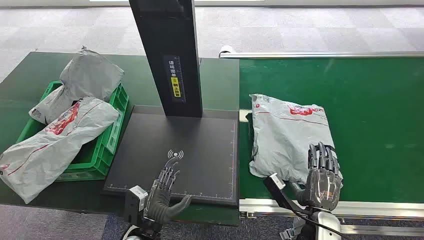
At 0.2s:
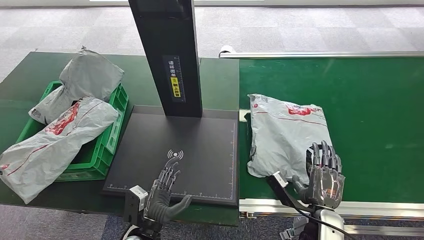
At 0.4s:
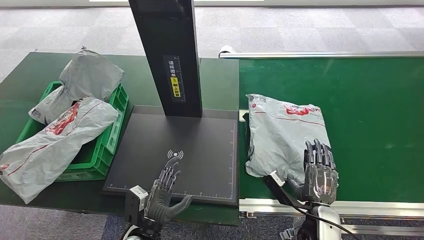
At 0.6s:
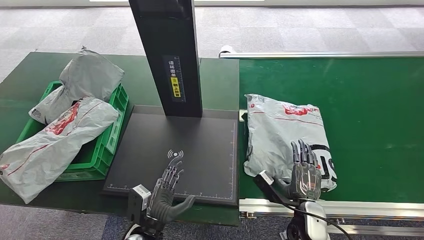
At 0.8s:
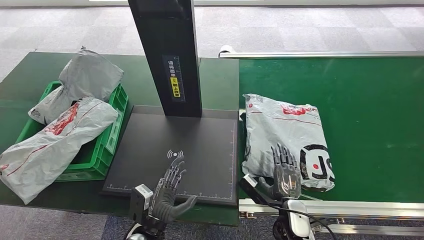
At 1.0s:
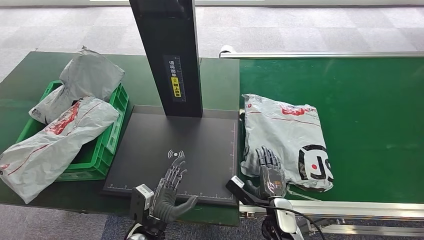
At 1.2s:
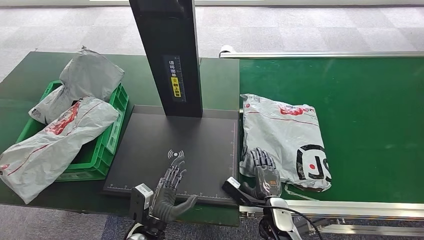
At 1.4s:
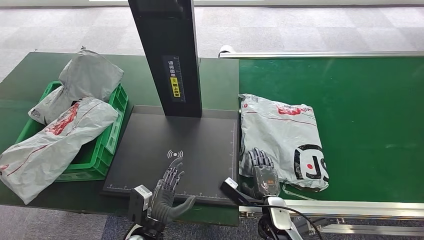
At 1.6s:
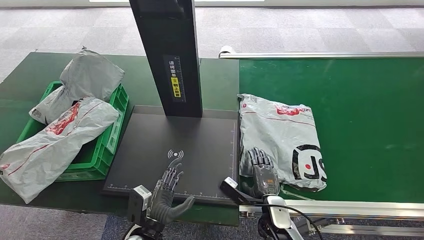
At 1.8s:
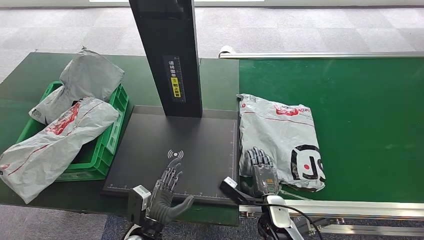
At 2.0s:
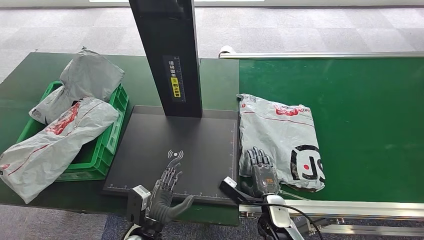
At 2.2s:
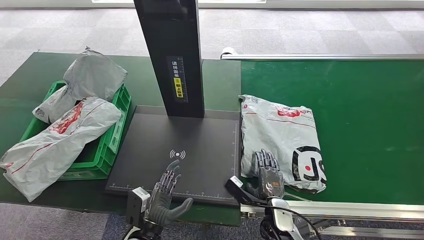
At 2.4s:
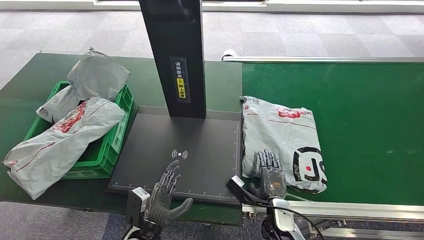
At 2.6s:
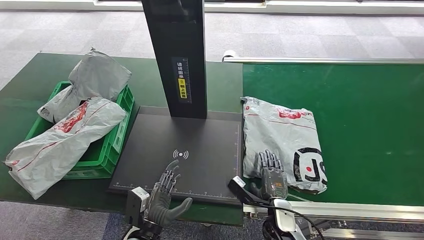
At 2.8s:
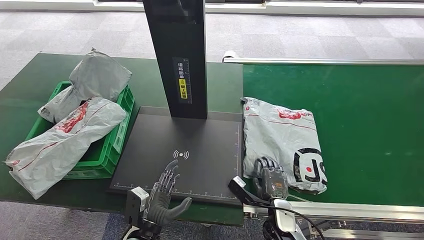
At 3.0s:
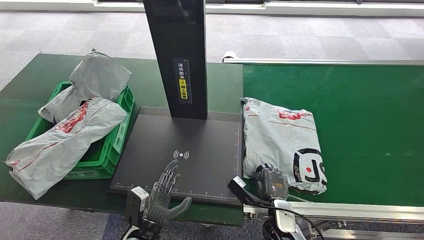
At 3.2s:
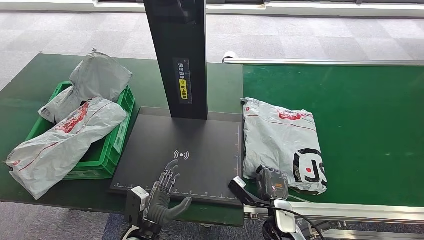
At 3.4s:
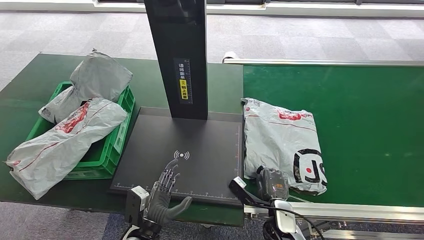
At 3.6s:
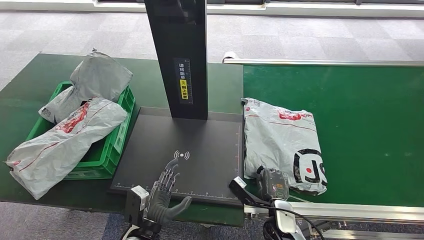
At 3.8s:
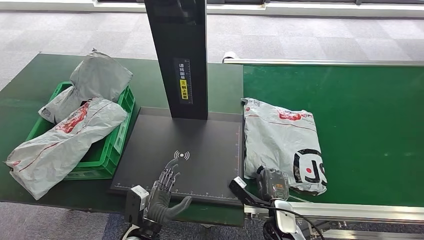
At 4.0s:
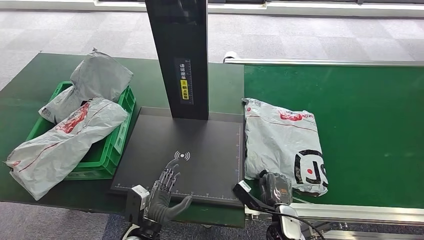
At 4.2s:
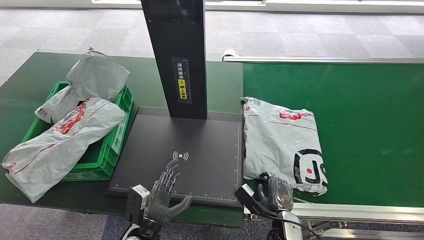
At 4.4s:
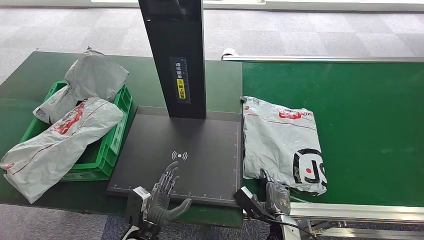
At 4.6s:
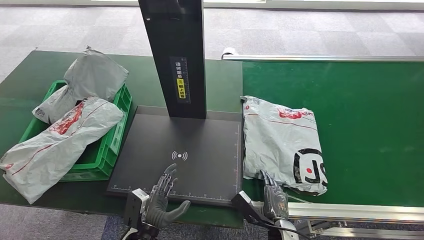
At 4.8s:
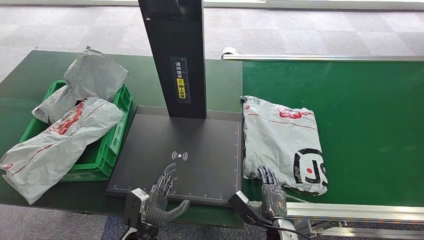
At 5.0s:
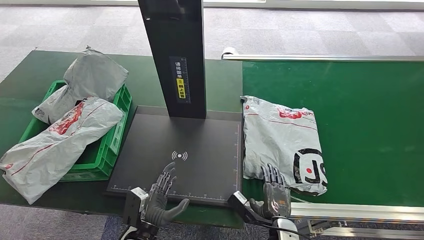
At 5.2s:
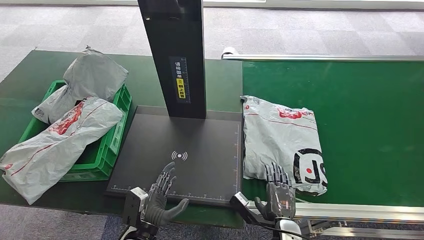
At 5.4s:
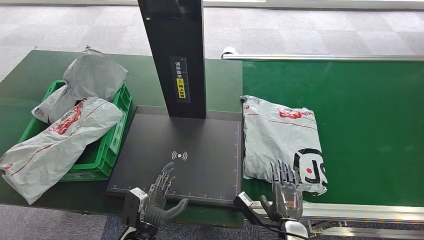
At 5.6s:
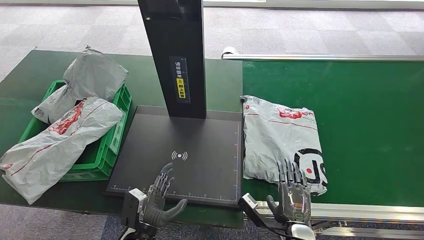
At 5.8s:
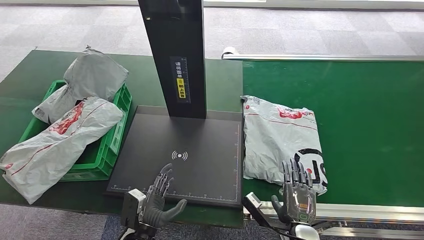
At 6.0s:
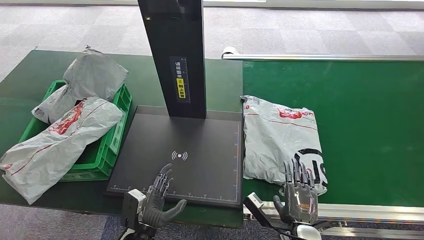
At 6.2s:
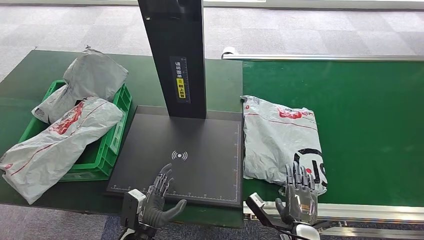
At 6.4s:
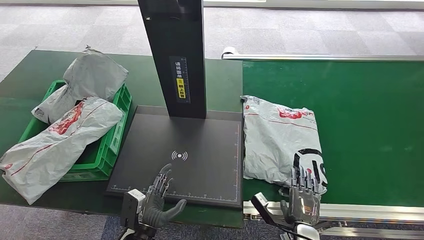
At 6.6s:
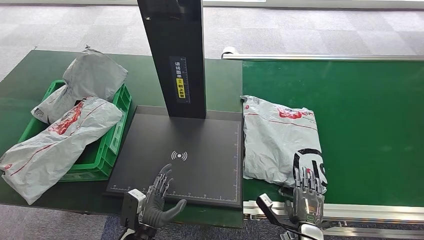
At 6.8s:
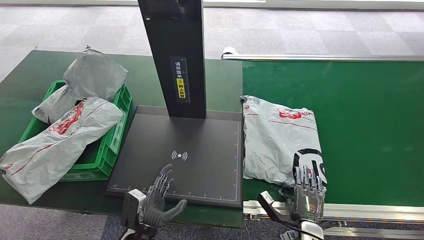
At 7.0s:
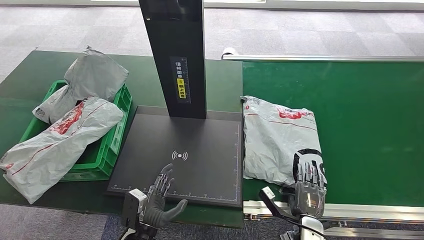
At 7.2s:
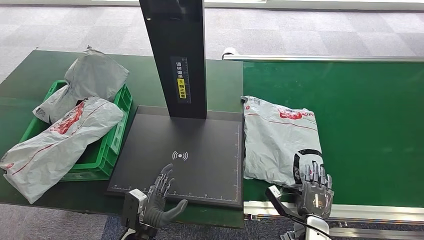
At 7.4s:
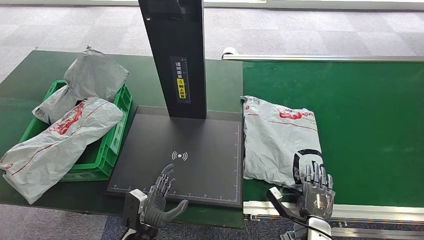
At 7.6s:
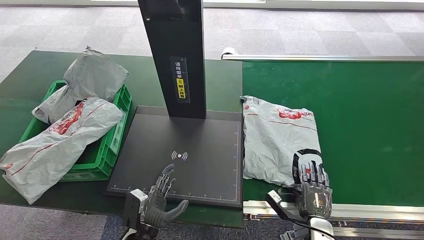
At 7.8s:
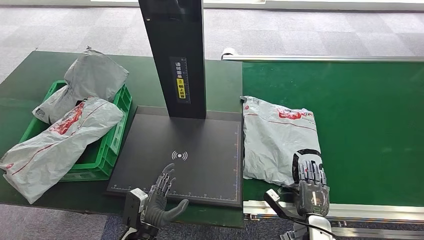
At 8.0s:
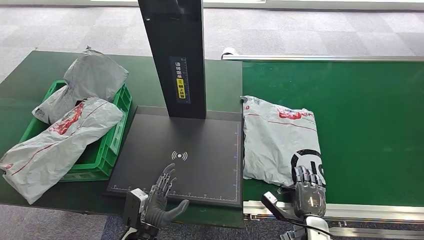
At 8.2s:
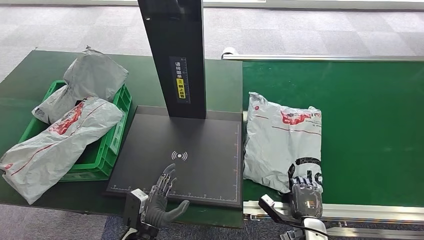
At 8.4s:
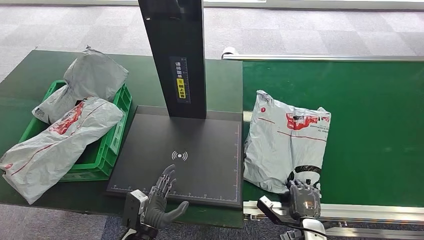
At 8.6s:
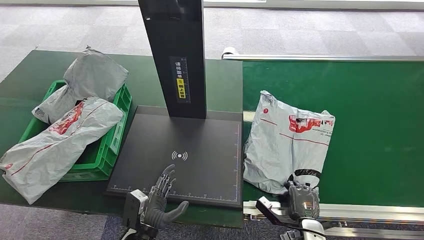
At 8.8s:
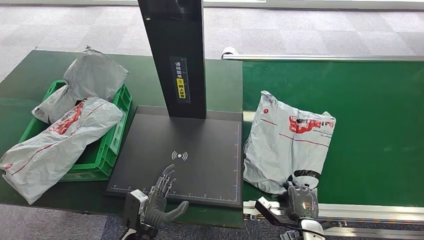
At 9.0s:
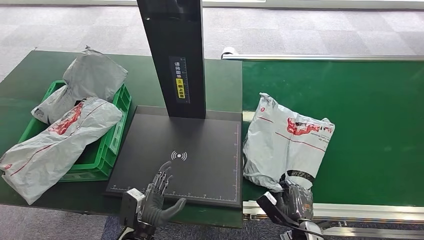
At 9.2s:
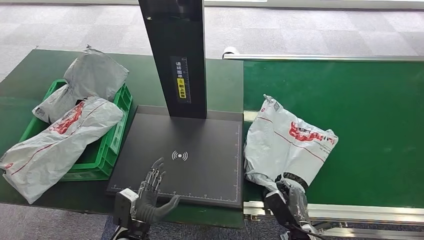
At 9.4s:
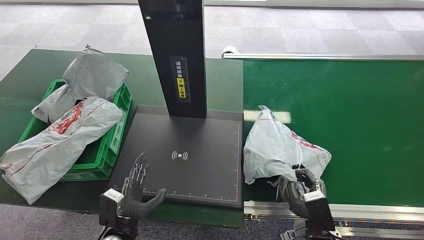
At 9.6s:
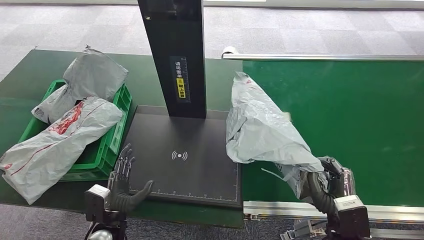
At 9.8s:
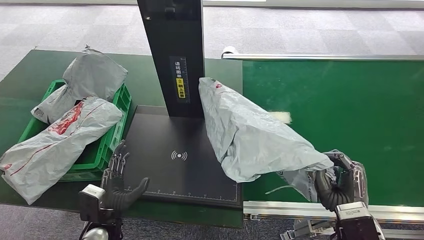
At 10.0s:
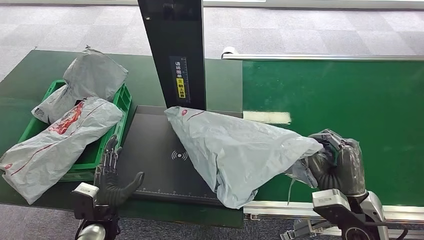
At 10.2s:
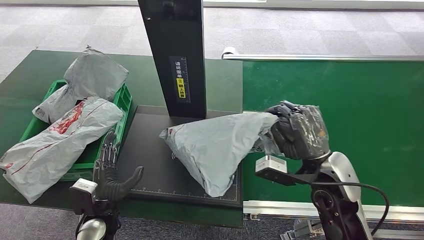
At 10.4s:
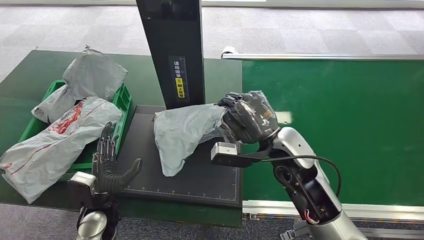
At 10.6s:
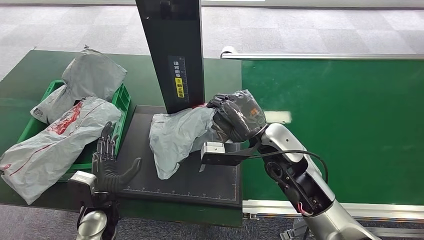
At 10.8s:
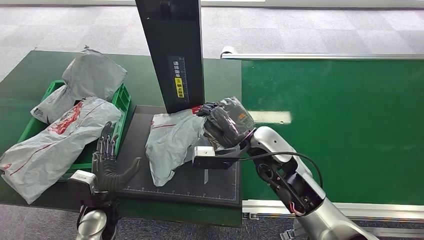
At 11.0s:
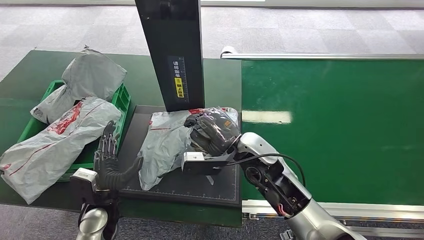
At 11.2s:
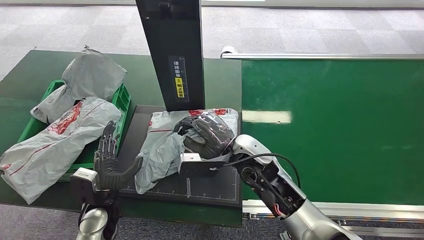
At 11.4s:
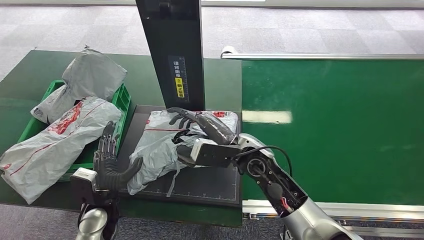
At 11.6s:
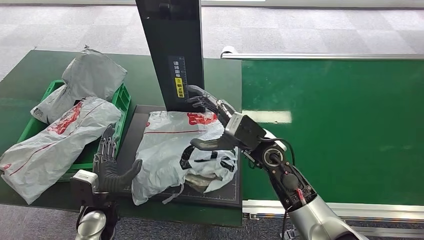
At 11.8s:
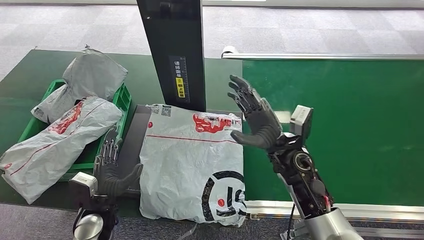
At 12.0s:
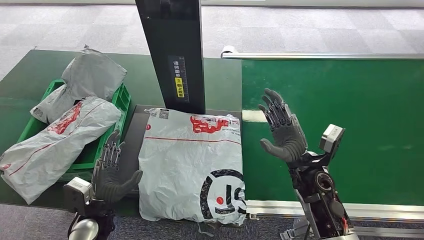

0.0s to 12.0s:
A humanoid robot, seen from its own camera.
Step, 0.0s to 9.8s: Pick up the package from the conveyor belt.
Step, 10.2s to 11.8s: Place the package onto the inbound machine.
3.0s to 4.4s: The hands stay close to where they were, moving slightly.
4.4s to 6.0s: The right hand is displaced upward by roughly 5 cm.
6.0s to 7.6s: The right hand travels to the right and downward by roughly 10 cm.

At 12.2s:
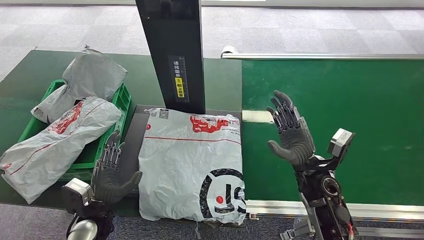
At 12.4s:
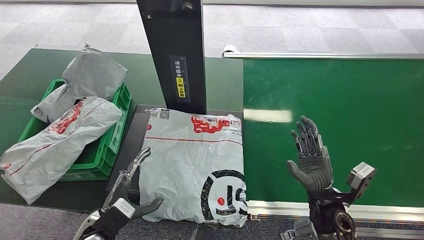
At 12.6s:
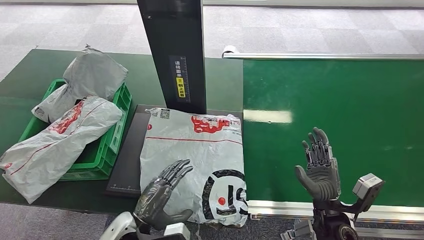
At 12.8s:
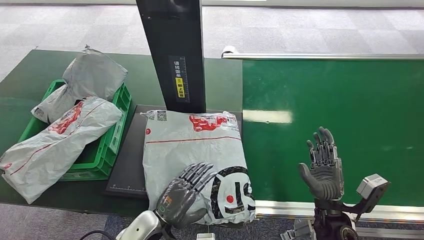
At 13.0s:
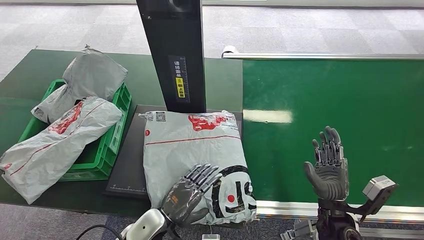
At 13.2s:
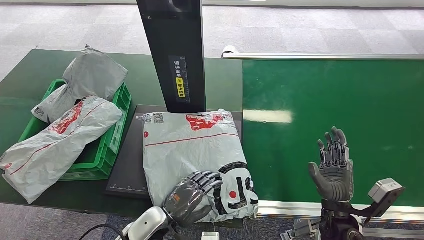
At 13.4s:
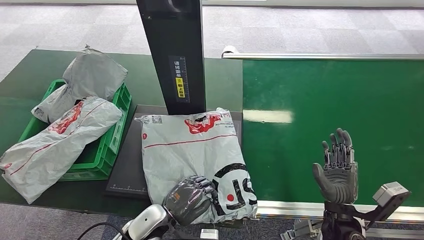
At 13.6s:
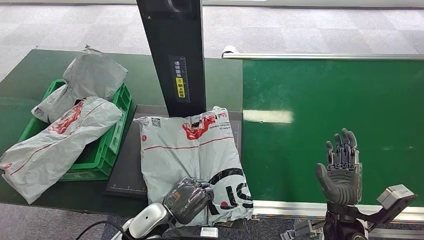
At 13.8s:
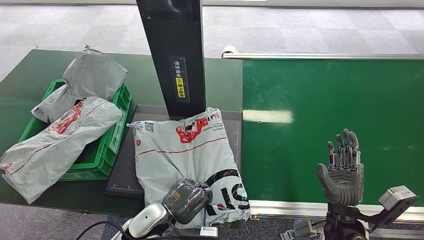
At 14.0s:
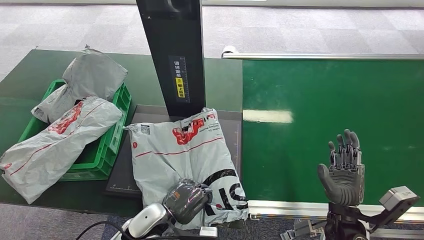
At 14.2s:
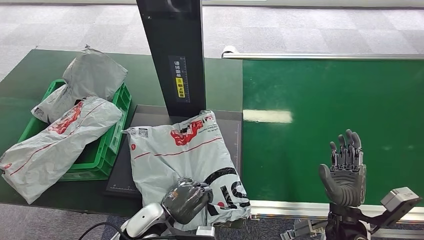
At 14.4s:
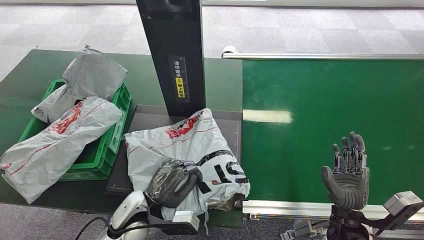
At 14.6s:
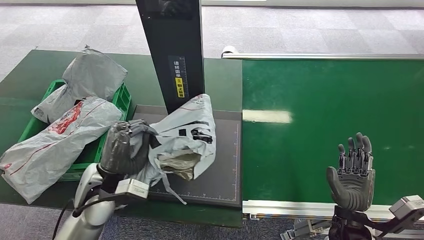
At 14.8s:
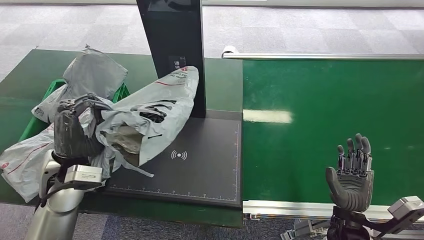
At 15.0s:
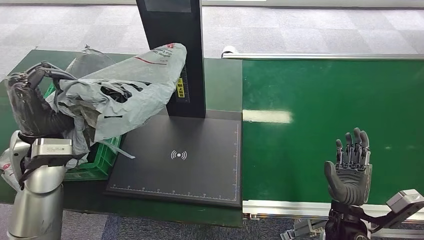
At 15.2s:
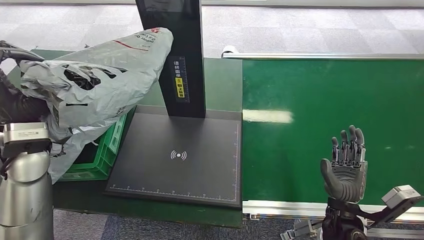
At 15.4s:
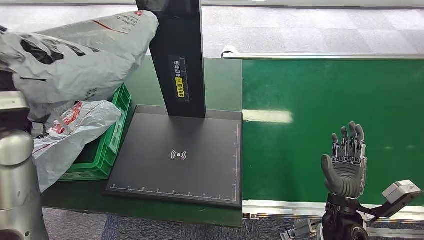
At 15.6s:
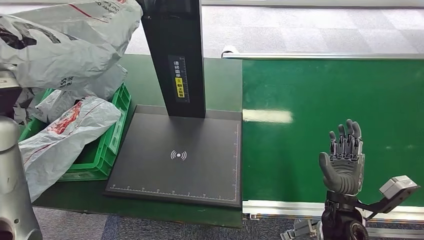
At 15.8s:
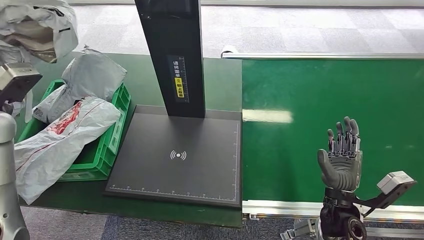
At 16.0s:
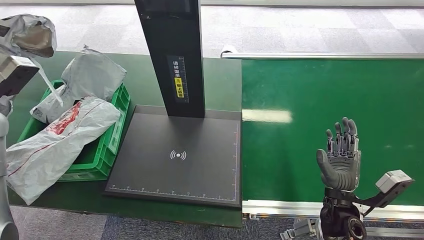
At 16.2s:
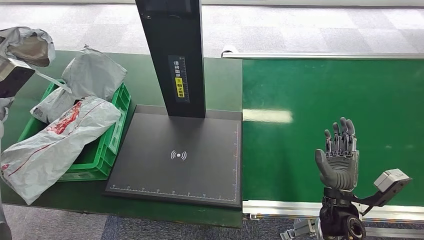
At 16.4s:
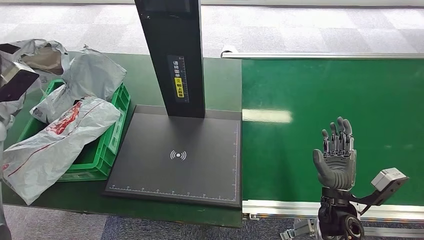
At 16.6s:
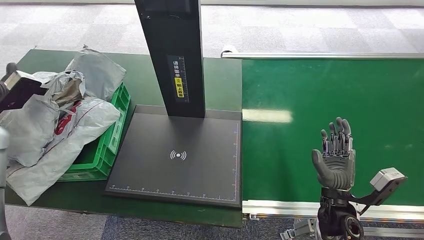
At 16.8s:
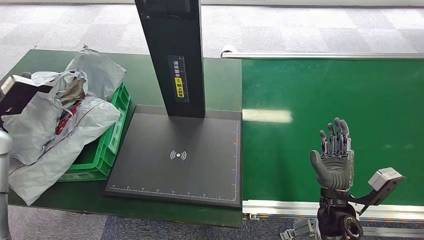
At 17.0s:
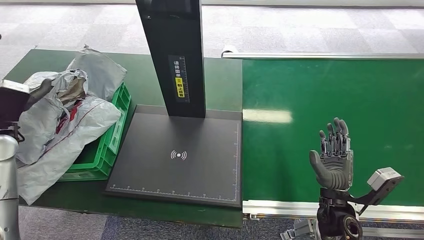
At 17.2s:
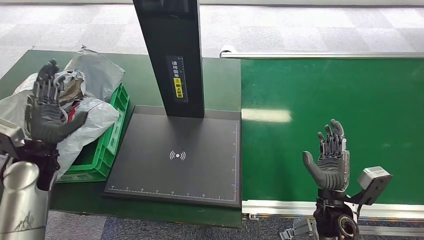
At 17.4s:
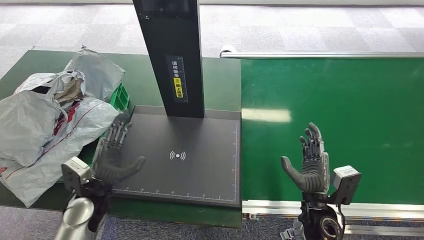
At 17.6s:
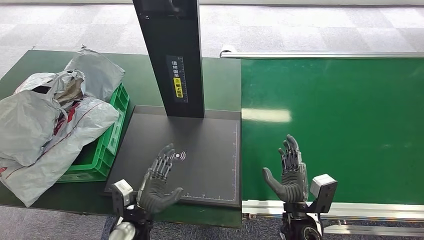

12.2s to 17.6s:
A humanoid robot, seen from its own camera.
Step, 12.2s to 14.8s: Pick up the package from the inbound machine.
Step, 15.2s to 17.6s: Place the package into the parcel locker.
12.2s to 13.6s: The left hand heads to the right, covering some 15 cm. The right hand goes roughly 10 cm backward.
